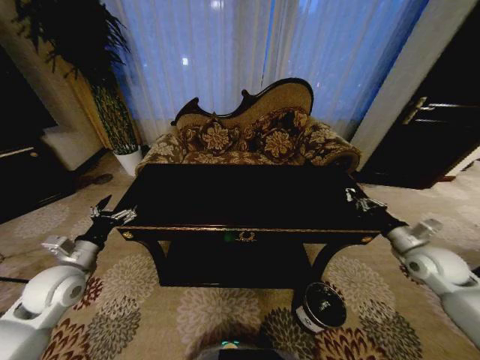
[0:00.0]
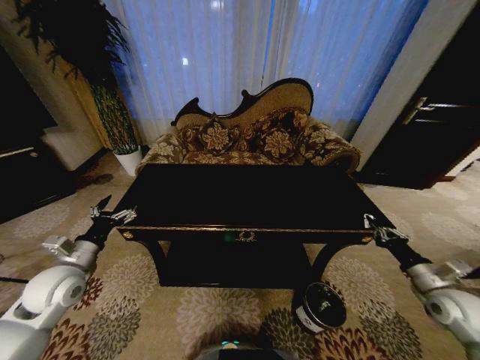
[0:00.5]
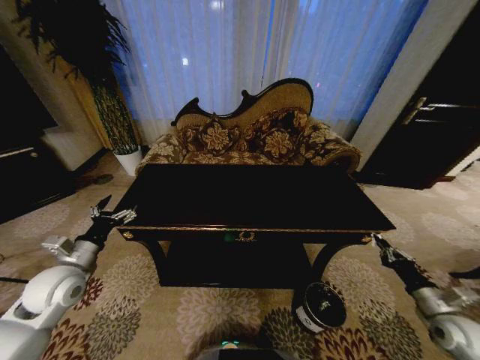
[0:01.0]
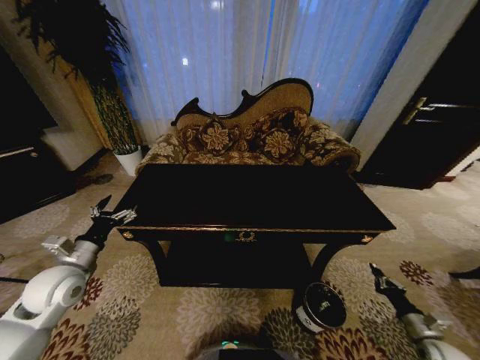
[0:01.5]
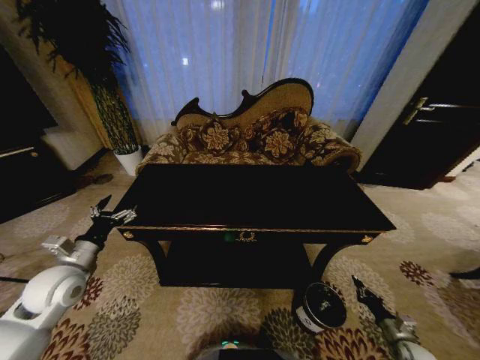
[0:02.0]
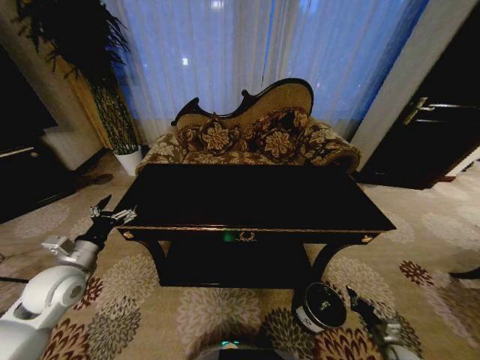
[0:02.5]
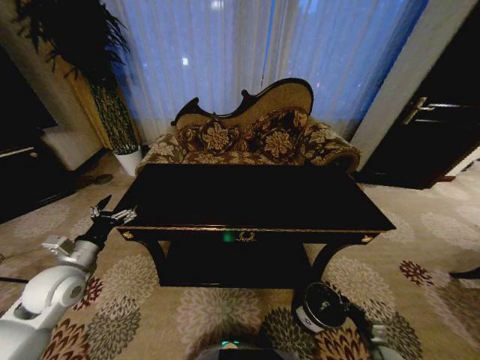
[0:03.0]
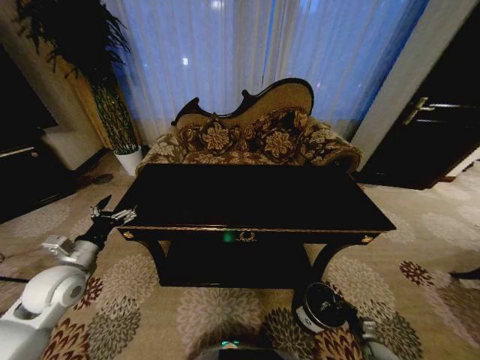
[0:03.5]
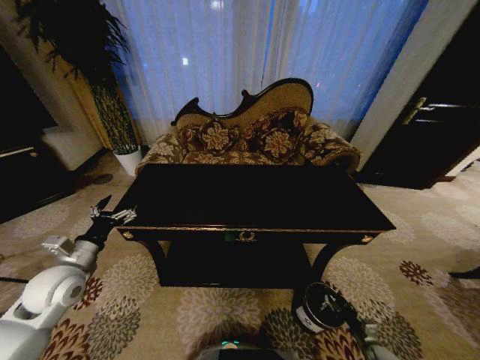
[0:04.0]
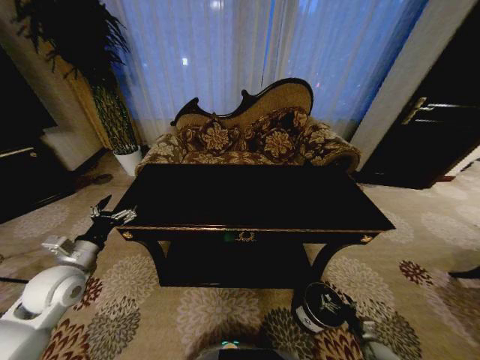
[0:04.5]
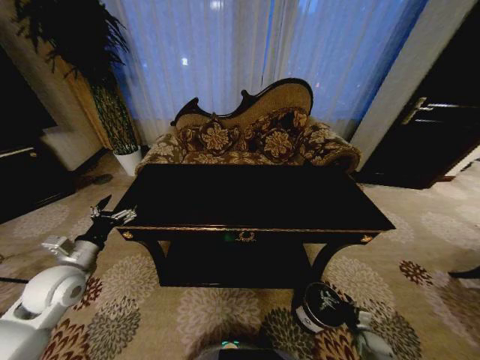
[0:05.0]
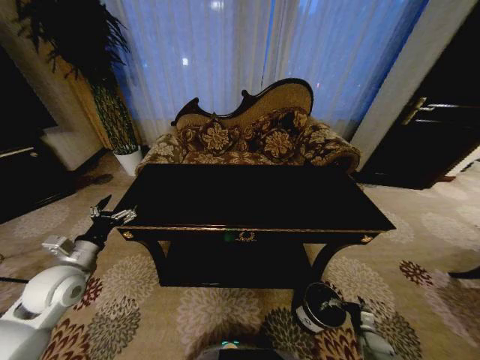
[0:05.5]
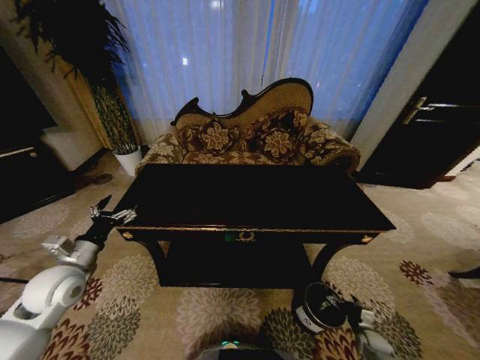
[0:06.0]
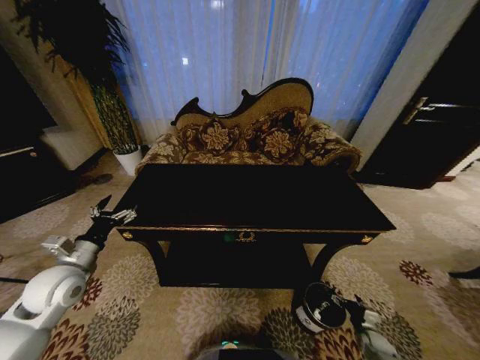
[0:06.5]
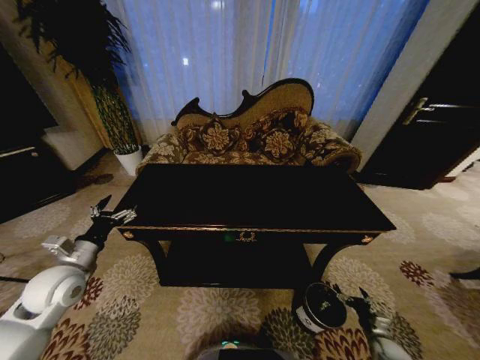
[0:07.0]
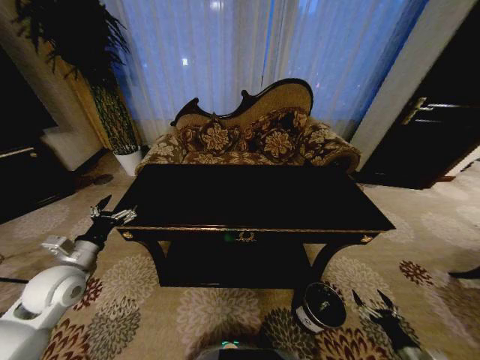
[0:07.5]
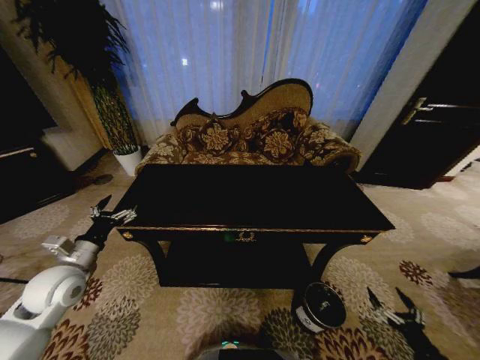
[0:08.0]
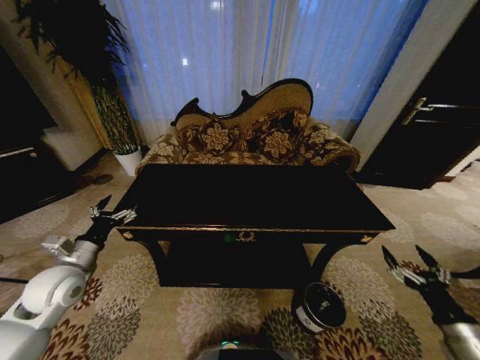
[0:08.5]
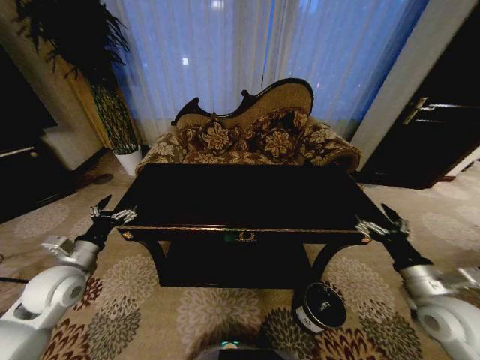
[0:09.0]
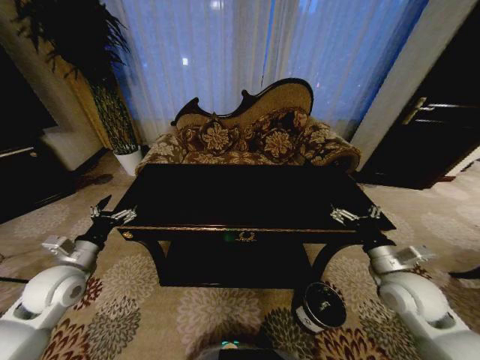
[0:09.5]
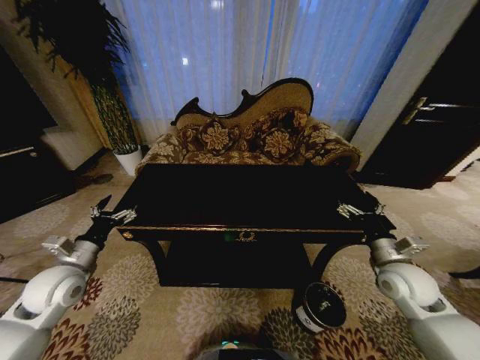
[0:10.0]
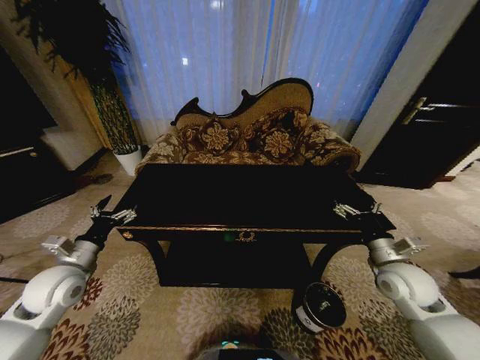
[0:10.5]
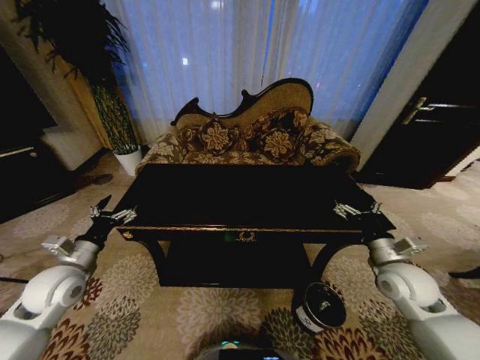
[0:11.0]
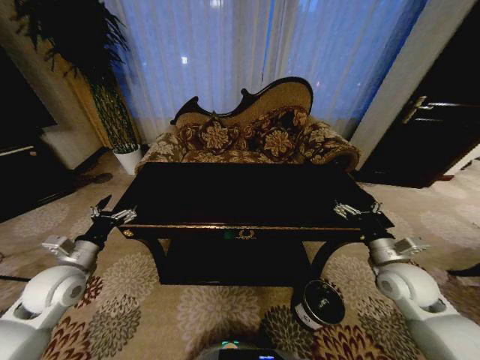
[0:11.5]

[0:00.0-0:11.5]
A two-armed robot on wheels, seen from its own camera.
Task of the whole recording: Move to the front of the table and place the trash on the table into the trash bin.
0:00.0 to 0:02.0: The right gripper heads downward and backward, covering some 35 cm.
0:02.0 to 0:04.0: The right gripper heads downward, covering about 10 cm, and opens.
0:04.0 to 0:06.0: The right gripper opens.
0:06.0 to 0:07.5: The right gripper moves backward and upward, about 15 cm.
0:07.5 to 0:09.5: The right gripper travels upward, forward and to the left by approximately 35 cm.
0:09.5 to 0:11.5: The grippers stay close to where they were, moving slightly.
